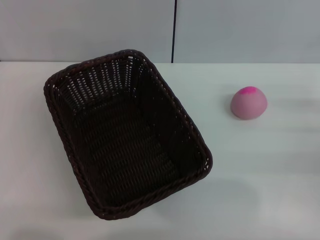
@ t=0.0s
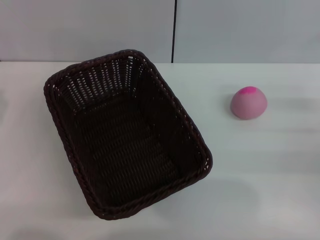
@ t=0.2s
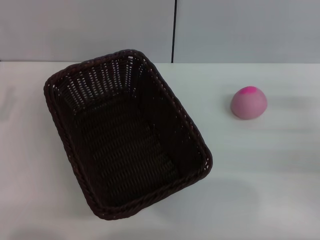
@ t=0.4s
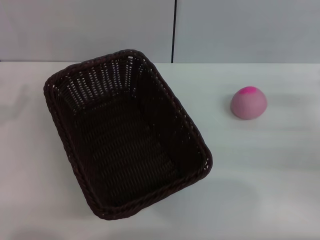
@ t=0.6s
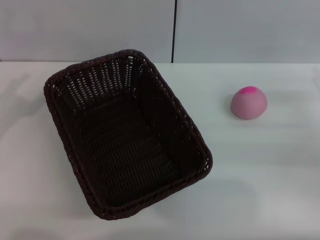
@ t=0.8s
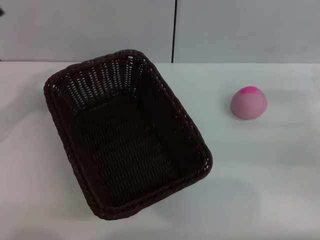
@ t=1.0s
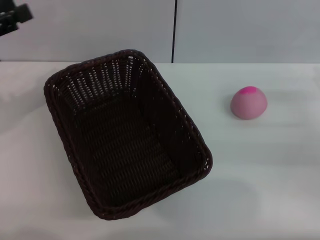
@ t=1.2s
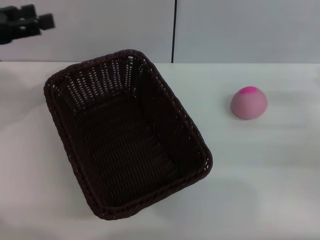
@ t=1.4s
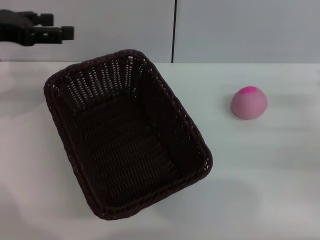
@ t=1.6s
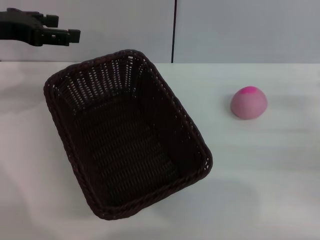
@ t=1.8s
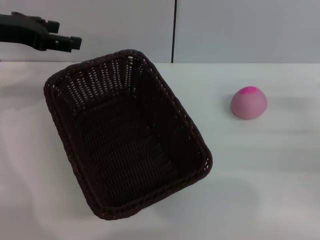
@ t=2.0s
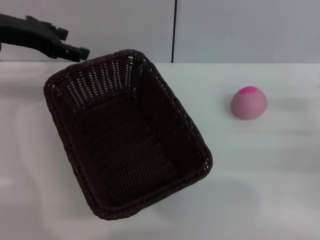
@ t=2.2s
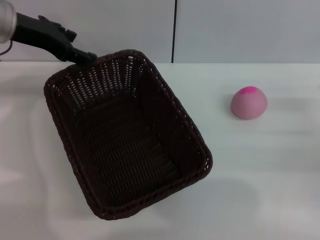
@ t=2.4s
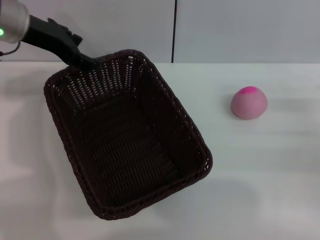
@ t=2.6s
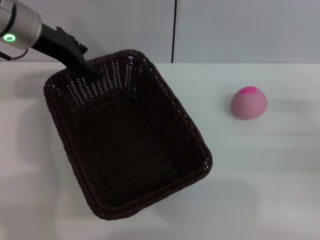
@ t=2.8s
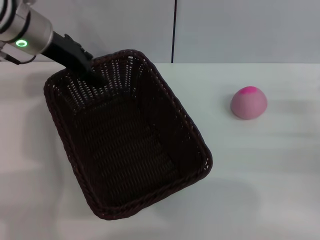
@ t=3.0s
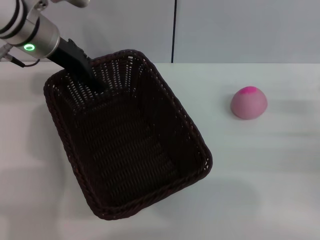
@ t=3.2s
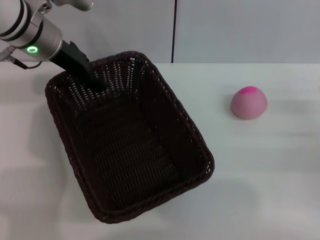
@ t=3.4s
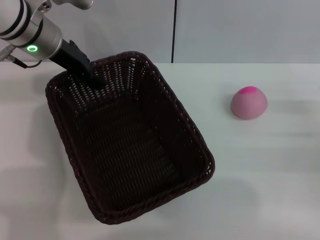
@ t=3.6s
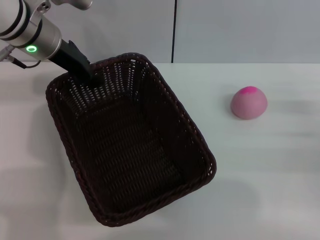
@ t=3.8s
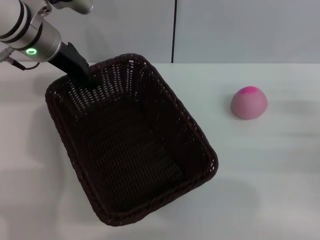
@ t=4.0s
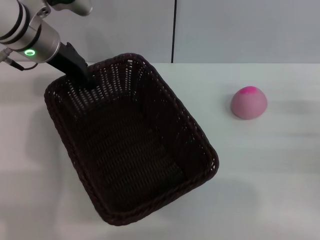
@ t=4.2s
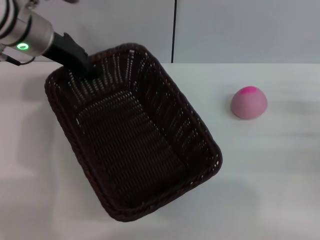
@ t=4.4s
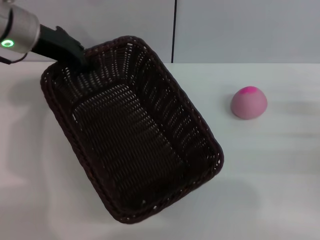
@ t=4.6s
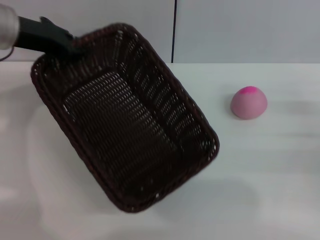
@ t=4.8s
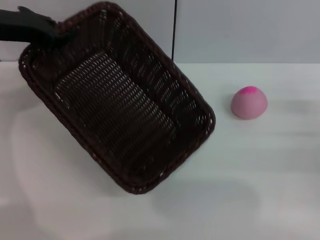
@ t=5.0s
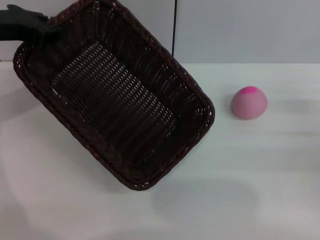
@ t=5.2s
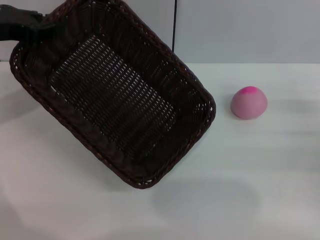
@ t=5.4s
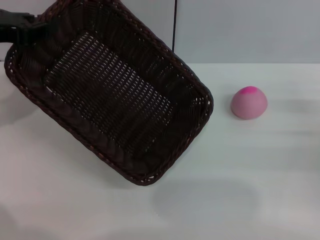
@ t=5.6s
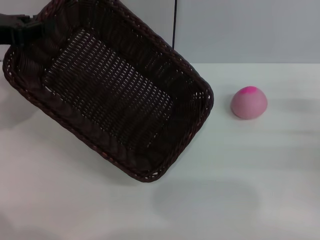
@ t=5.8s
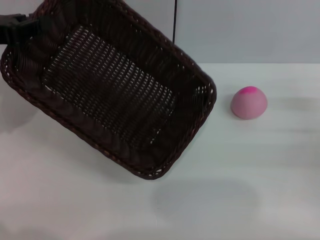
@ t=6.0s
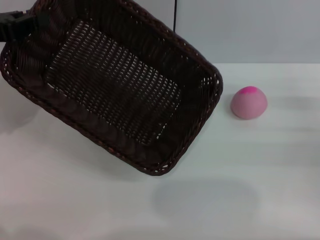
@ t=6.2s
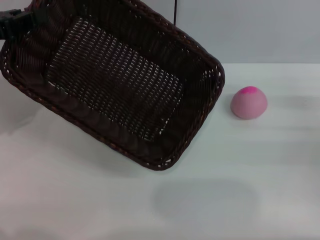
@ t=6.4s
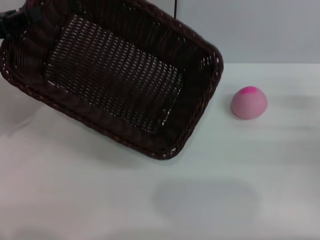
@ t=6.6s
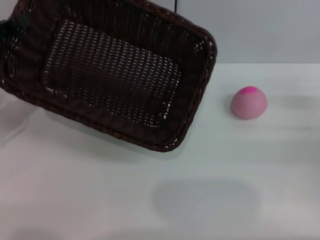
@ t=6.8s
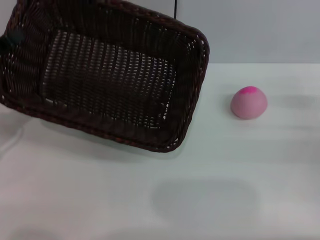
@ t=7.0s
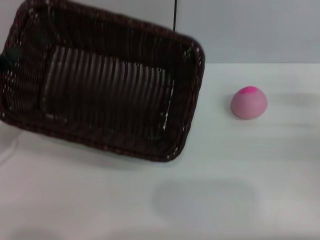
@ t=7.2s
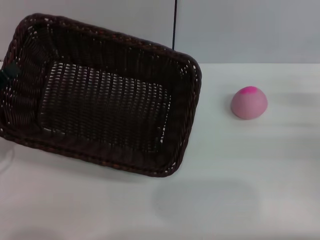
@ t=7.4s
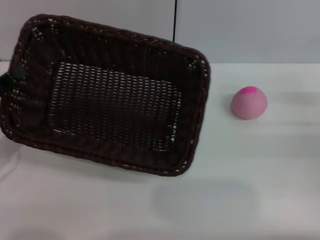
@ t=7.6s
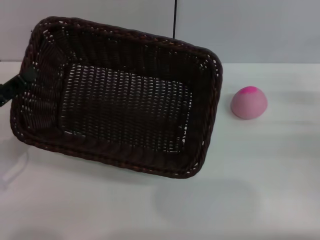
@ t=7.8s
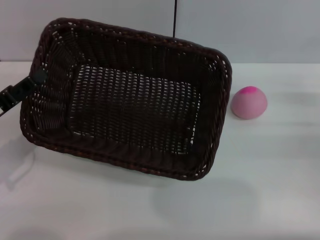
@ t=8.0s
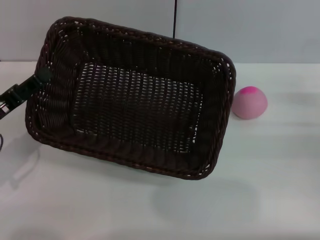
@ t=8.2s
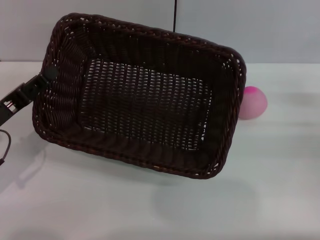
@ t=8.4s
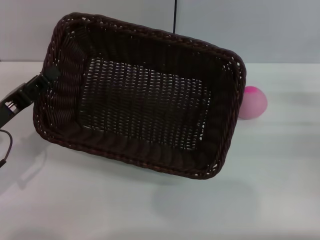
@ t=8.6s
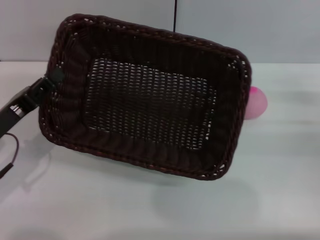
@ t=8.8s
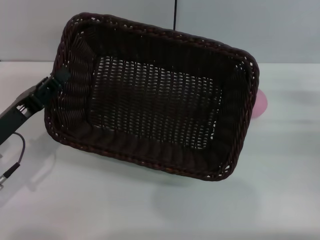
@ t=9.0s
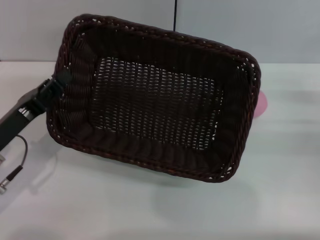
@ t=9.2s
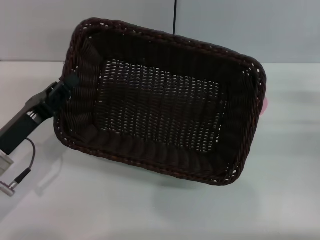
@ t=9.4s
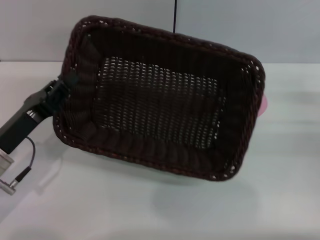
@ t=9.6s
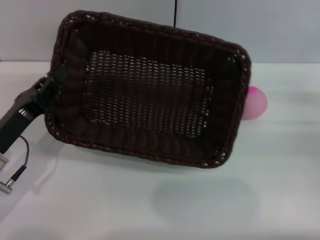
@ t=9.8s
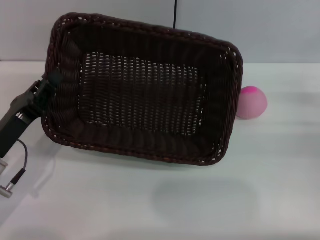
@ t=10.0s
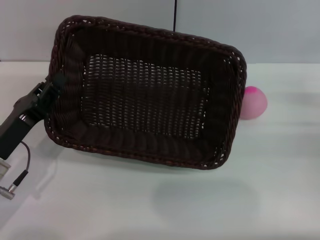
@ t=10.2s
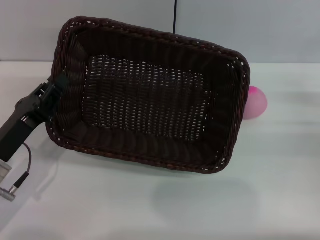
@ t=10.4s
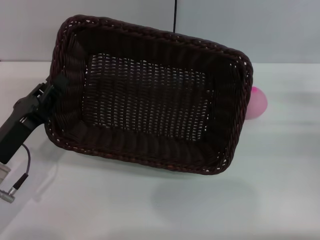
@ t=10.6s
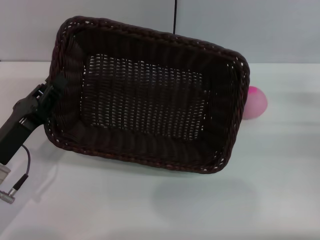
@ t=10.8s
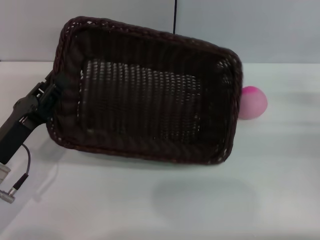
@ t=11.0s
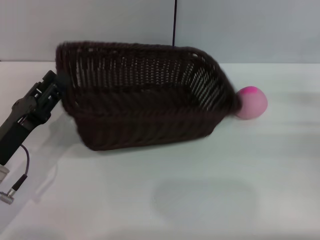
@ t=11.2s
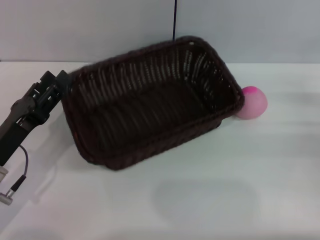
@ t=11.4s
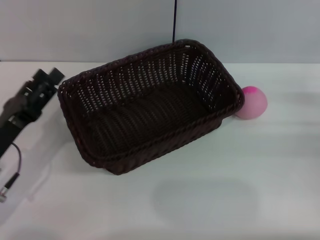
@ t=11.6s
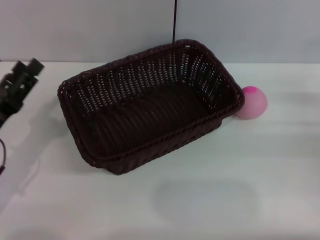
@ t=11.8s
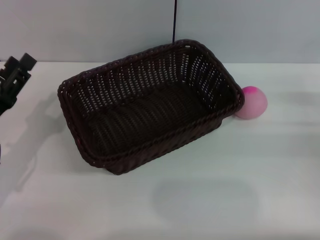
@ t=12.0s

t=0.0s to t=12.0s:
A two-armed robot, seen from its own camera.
Step, t=0.0s to t=4.6s: Pick up the dark basket with the left gripper.
t=0.0s to t=1.6s: The left gripper shifts some 20 cm forward and upward.
t=1.6s to t=3.0s: The left gripper is displaced to the right and forward by approximately 10 cm.
t=3.0s to t=4.4s: The left gripper closes.
t=4.4s to t=6.0s: The left gripper moves to the left and backward, approximately 15 cm.
t=6.0s to t=7.6s: The left gripper shifts roughly 15 cm downward and backward.
t=7.6s to t=9.0s: The left gripper heads to the right, covering roughly 5 cm.
t=9.0s to t=10.4s: The grippers stay close to where they were, moving slightly.
t=10.4s to t=12.0s: The left gripper opens up.

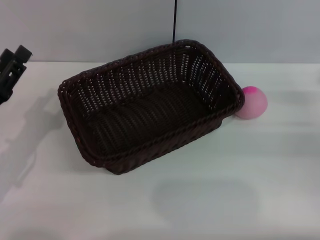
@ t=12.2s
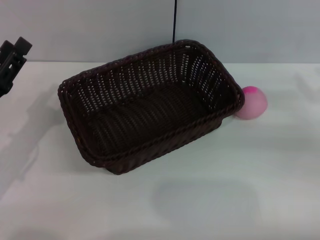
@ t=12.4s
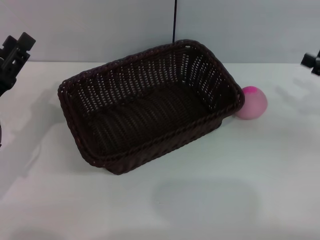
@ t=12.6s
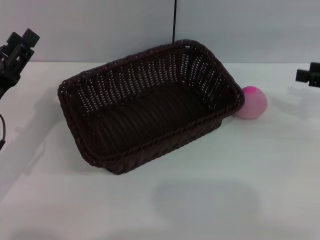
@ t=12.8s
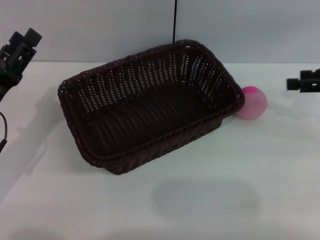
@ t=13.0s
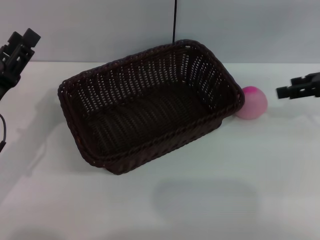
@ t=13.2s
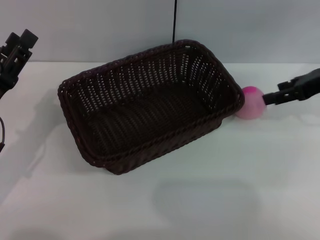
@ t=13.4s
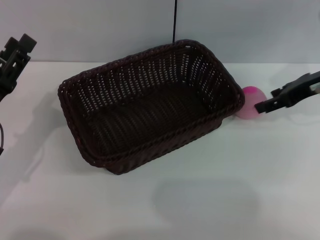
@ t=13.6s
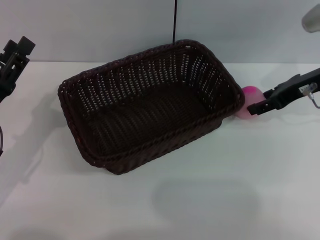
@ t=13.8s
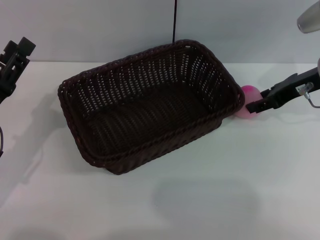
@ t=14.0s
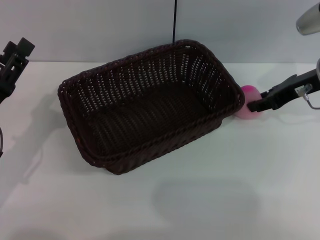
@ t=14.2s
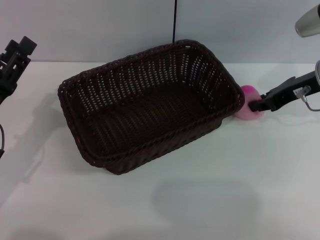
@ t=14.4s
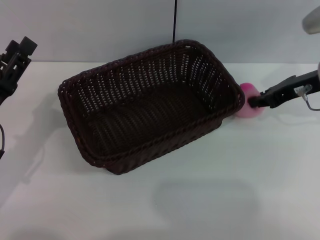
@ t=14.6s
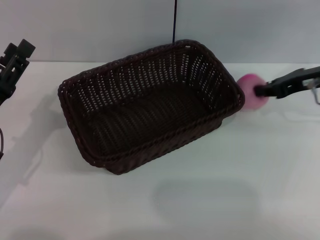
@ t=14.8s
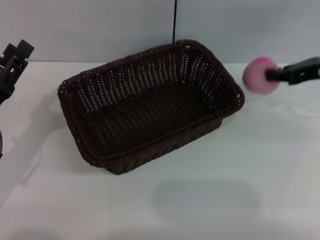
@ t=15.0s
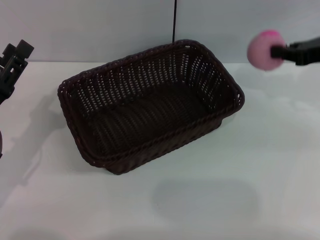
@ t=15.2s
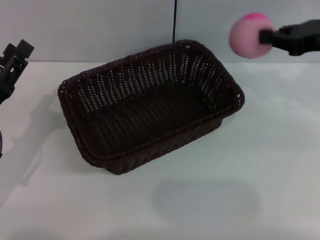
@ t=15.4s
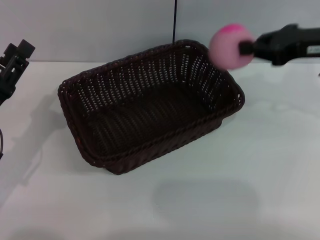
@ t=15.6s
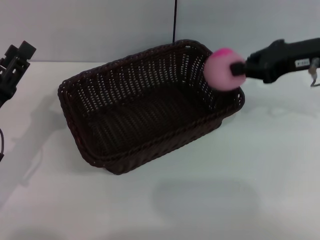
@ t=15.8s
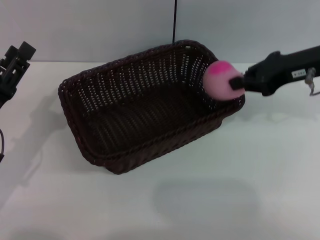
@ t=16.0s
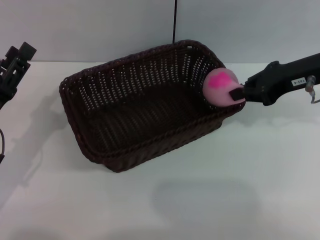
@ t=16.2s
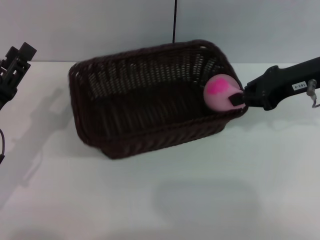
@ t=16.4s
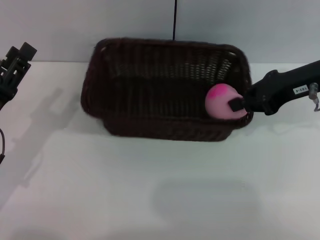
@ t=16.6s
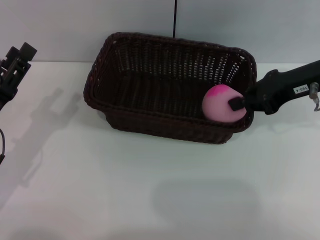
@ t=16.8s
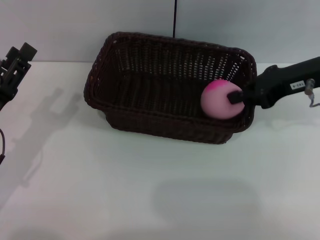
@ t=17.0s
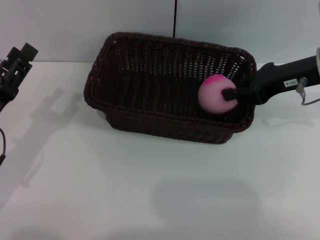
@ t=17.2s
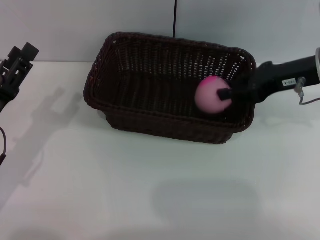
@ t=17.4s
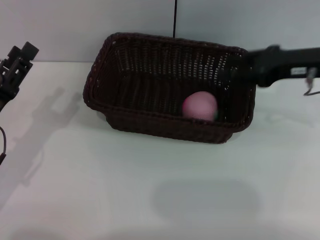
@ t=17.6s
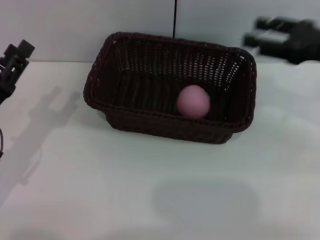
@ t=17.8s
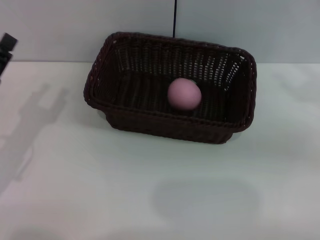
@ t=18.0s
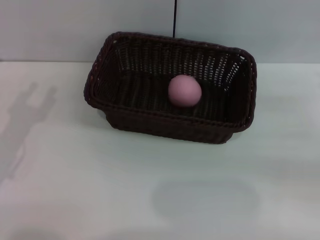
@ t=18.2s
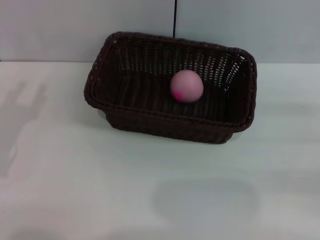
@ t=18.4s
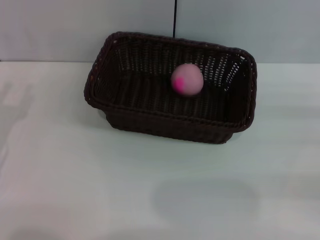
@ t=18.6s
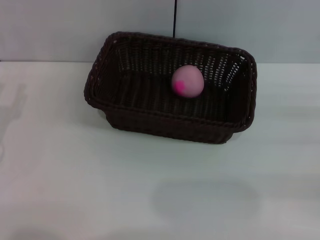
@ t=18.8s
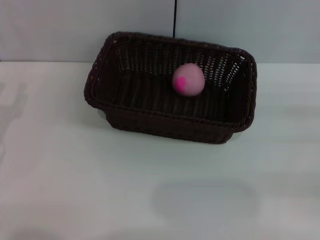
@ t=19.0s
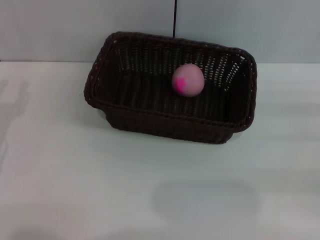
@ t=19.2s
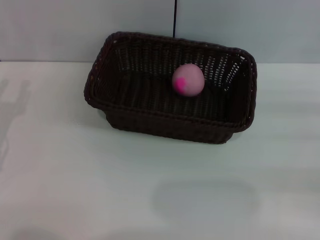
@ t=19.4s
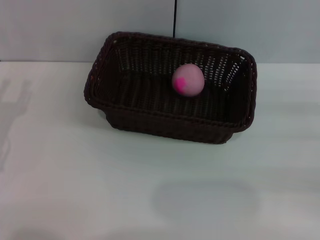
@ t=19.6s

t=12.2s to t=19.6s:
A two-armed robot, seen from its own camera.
t=12.2s to t=13.6s: The right gripper goes about 15 cm upward, forward and to the left.
t=13.6s to t=15.2s: The right gripper closes.
t=15.2s to t=16.6s: The right gripper is displaced to the left by about 5 cm.
t=16.6s to t=18.2s: The right gripper goes roughly 20 cm to the right, backward and downward, and opens.
t=18.2s to t=19.6s: The grippers stay close to where they were, moving slightly.
